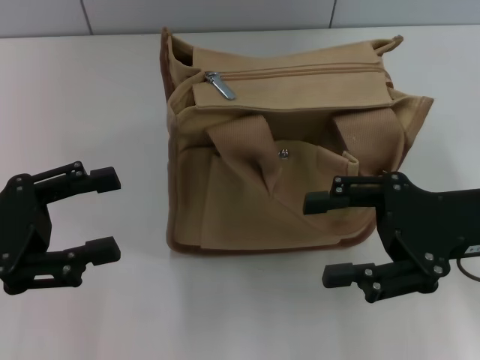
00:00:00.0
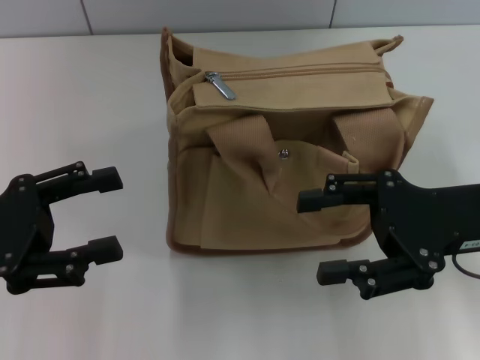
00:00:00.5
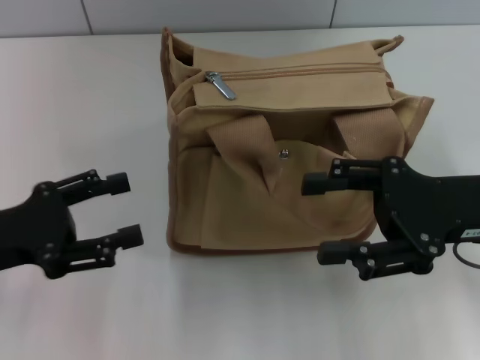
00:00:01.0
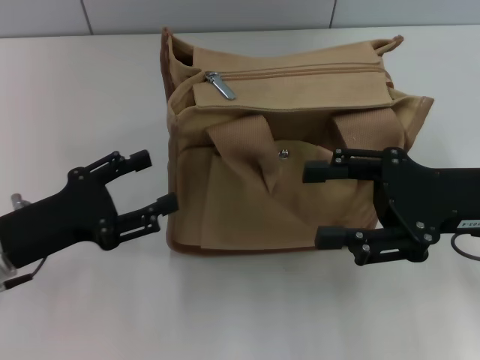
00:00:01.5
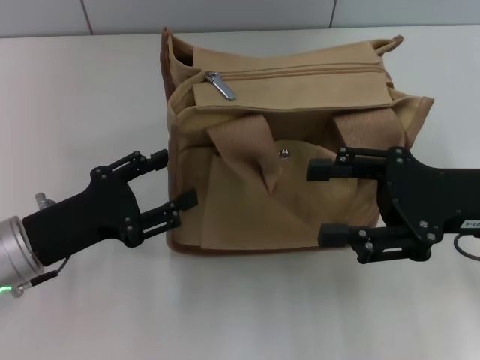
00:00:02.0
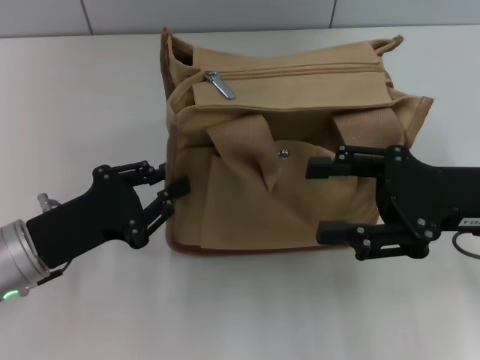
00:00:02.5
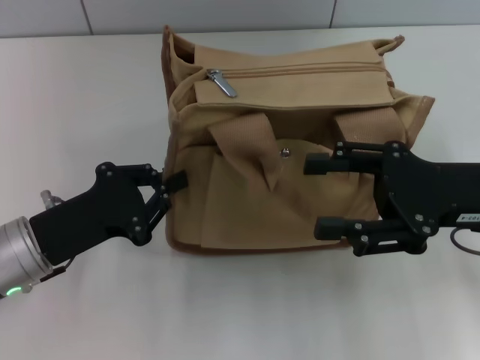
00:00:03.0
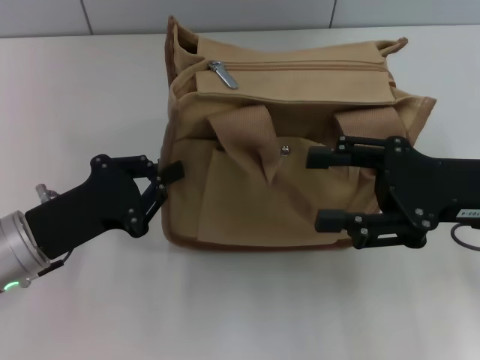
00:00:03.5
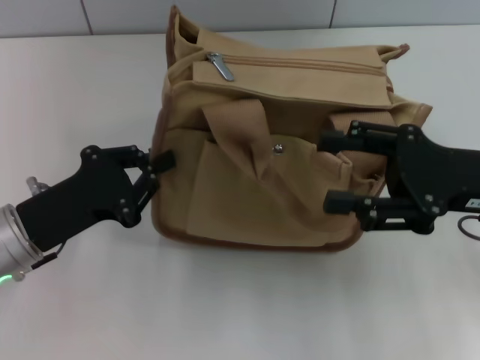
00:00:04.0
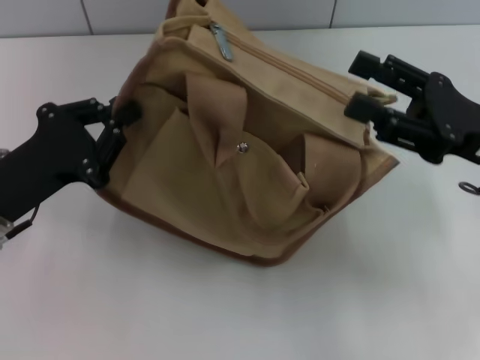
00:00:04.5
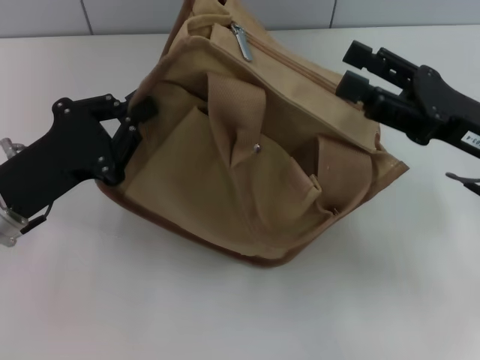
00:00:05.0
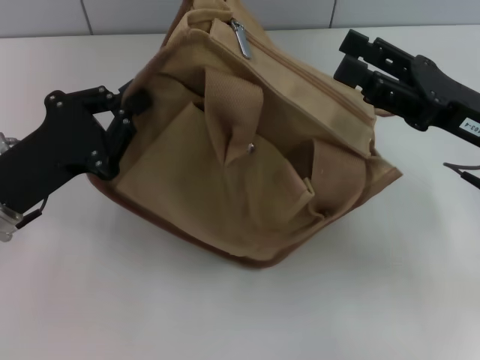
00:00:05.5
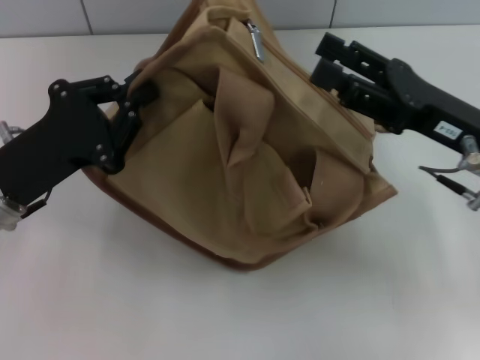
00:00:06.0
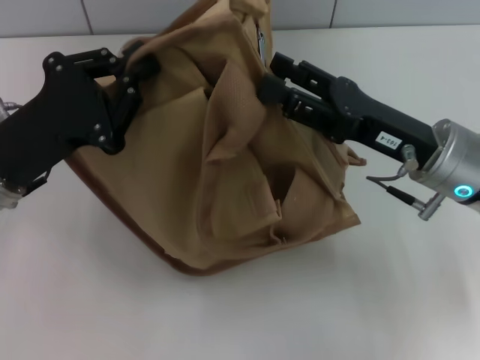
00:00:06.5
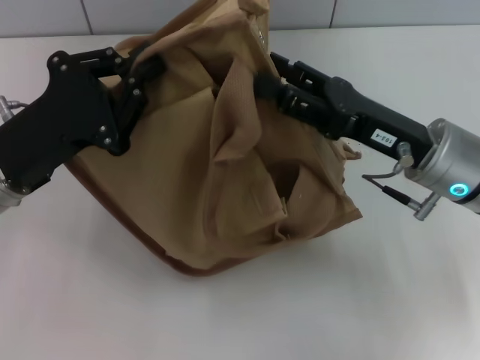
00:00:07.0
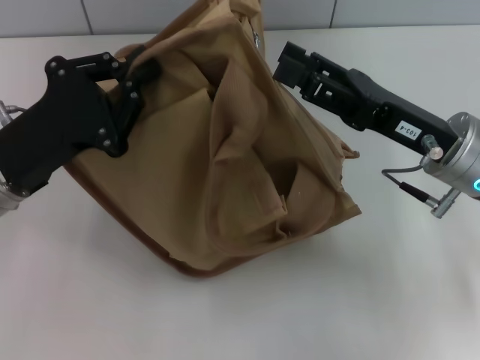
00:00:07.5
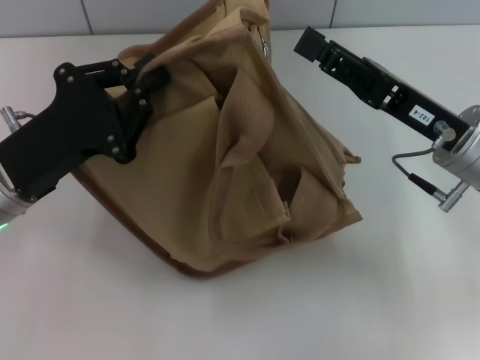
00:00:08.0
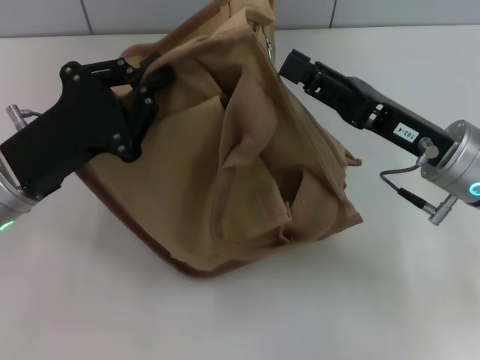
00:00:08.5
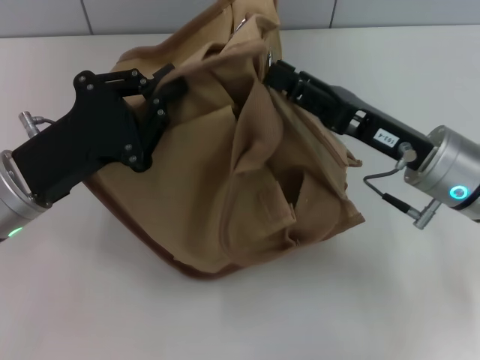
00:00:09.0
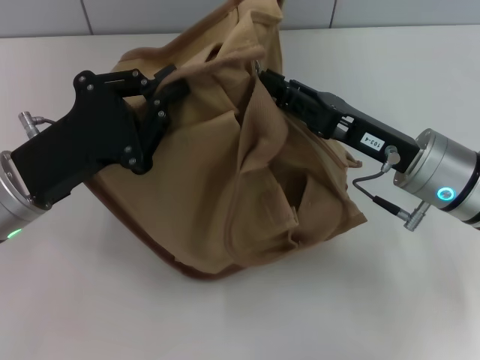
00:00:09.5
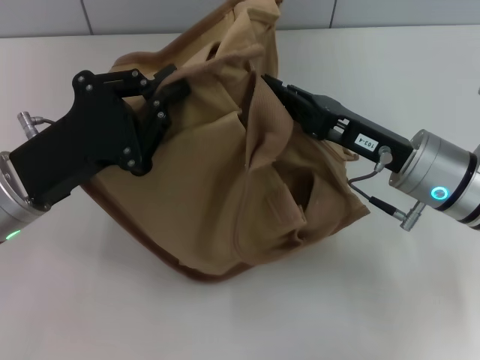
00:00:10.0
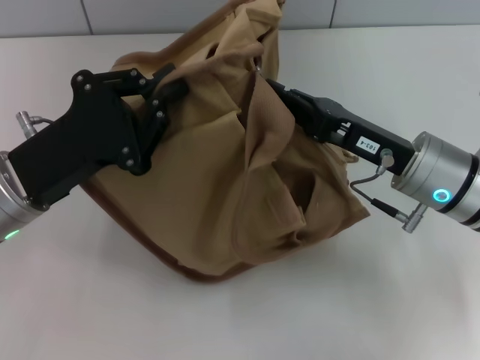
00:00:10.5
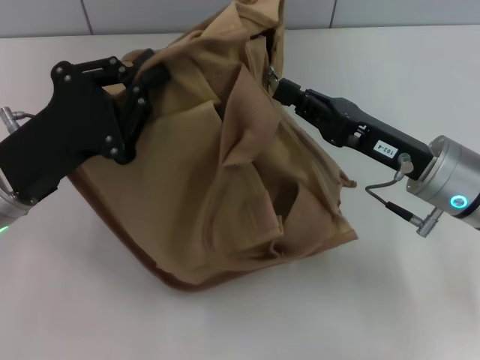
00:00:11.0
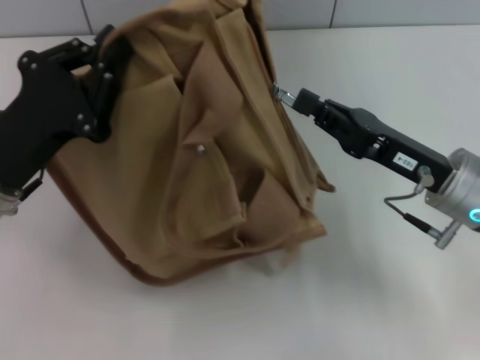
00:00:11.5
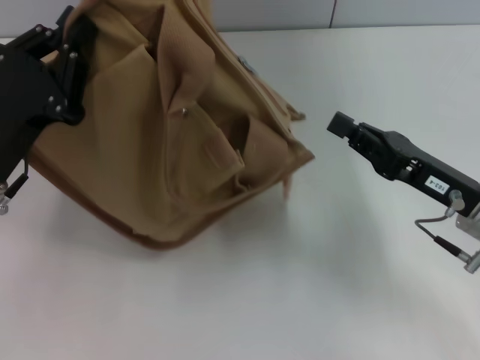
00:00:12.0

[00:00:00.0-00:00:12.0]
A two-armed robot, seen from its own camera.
00:00:00.0 to 00:00:02.0: The left gripper travels downward and to the right by approximately 10 cm.
00:00:02.0 to 00:00:04.0: The left gripper closes up.
00:00:08.0 to 00:00:10.0: The right gripper closes its fingers.
00:00:10.0 to 00:00:12.0: The right gripper heads to the right, covering approximately 5 cm.

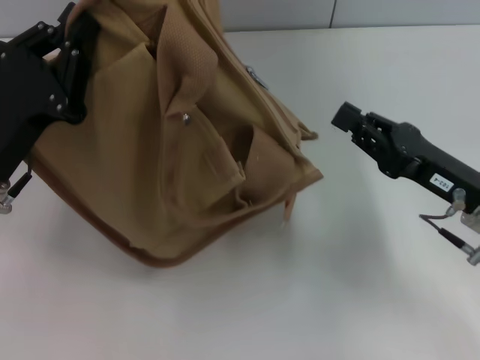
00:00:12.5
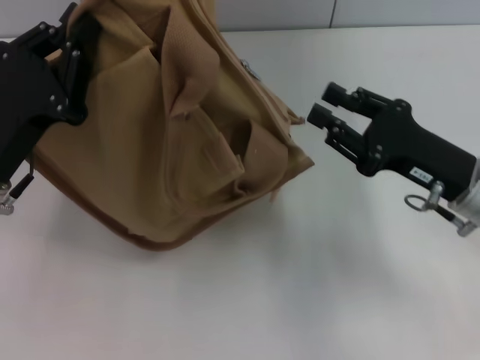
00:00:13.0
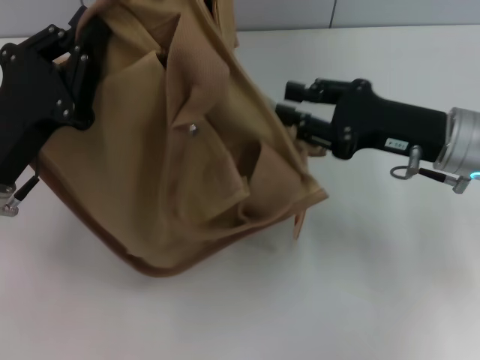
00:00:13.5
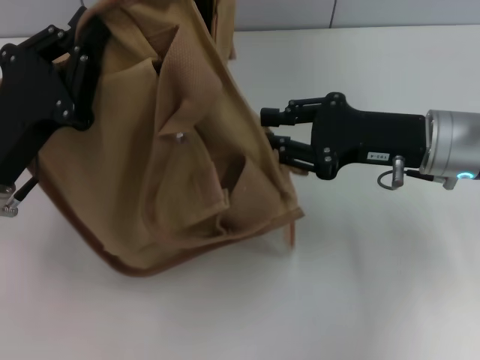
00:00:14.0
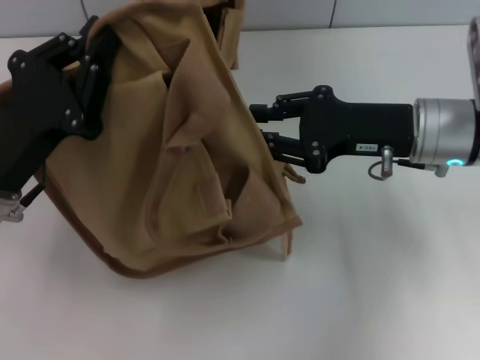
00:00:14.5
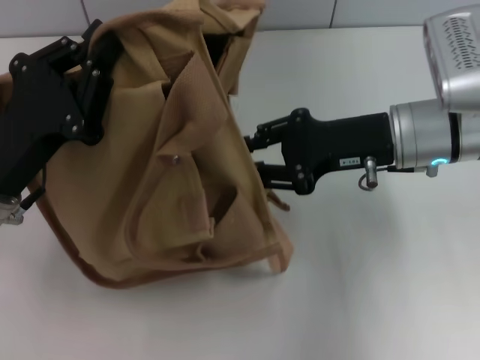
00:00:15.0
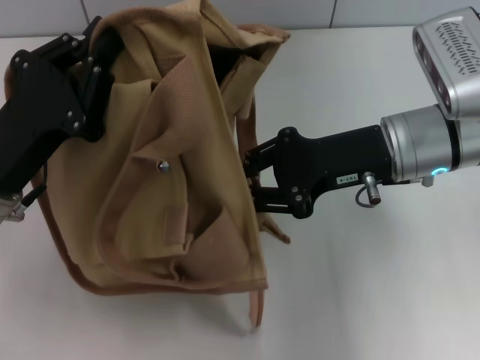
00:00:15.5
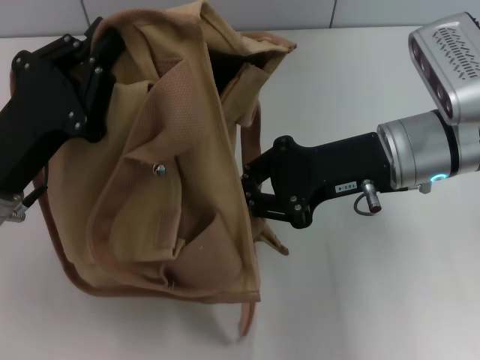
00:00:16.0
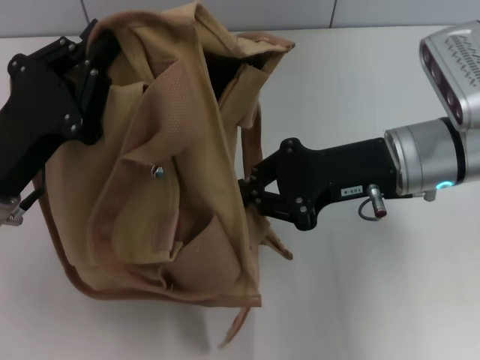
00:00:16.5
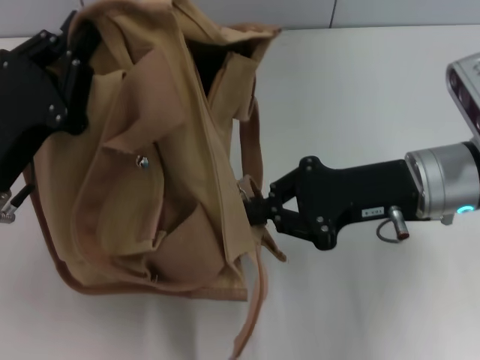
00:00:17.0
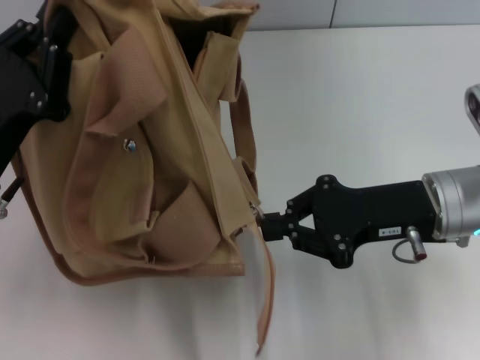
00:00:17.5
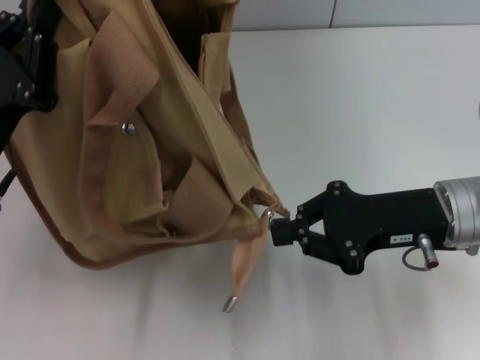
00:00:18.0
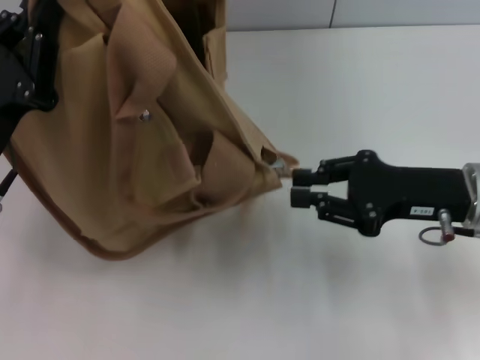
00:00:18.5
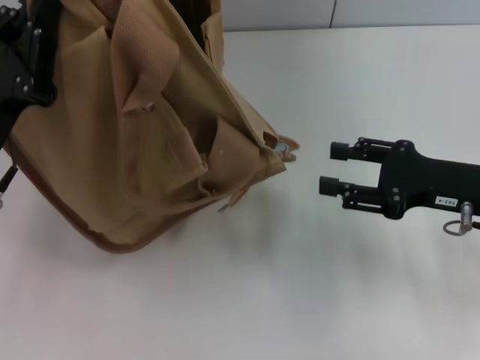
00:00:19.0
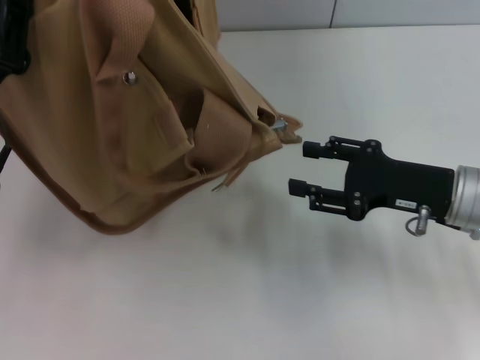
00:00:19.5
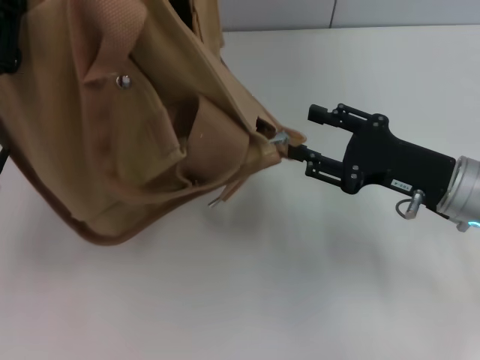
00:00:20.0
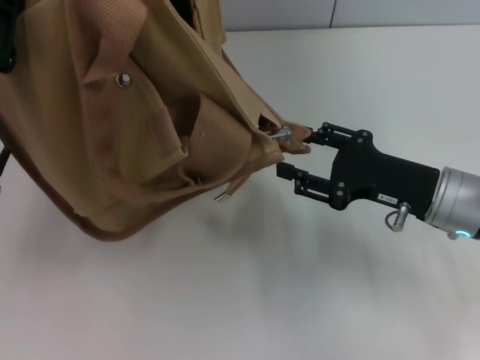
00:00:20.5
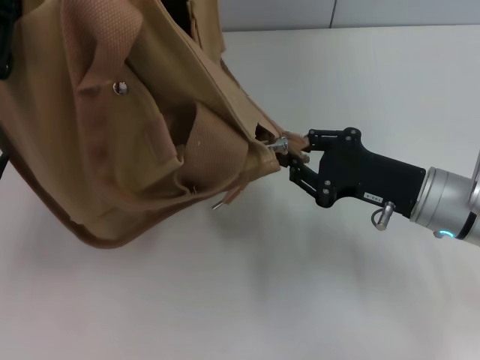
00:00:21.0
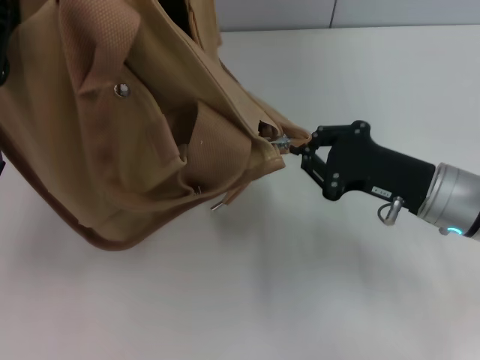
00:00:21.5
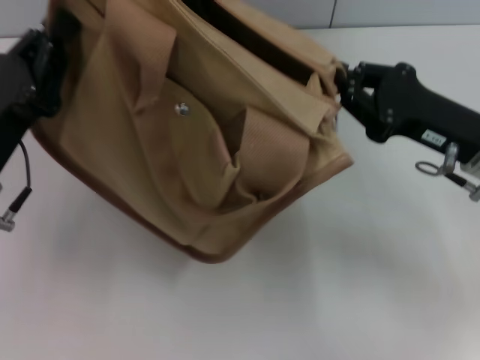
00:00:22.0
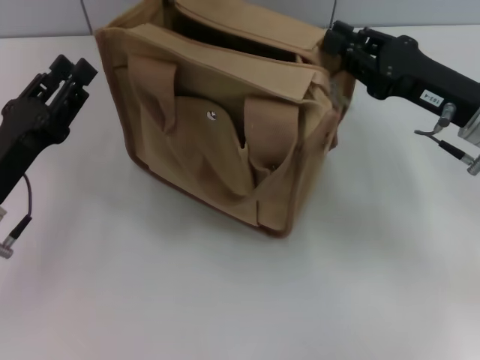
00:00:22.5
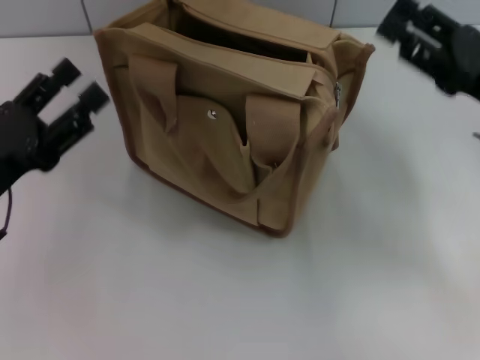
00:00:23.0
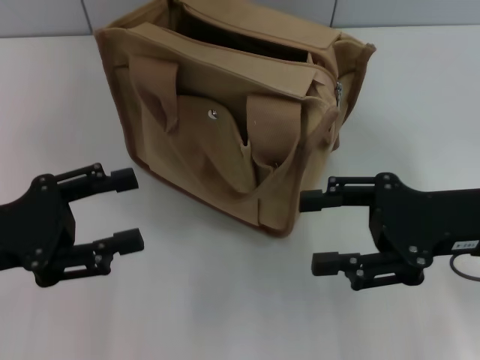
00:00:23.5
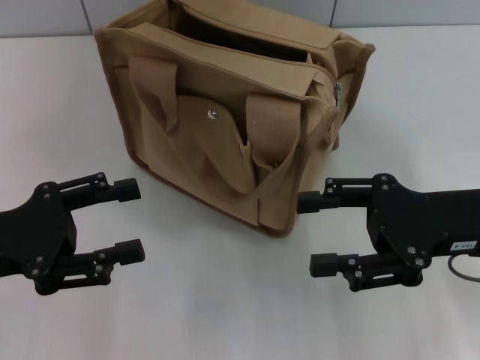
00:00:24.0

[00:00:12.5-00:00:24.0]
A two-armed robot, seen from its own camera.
Step, 00:00:12.5 to 00:00:18.0: Pull open the zipper with your right hand.
Step, 00:00:19.0 to 00:00:22.0: Grab the bag with your left hand.
00:00:12.5 to 00:00:14.5: The right gripper goes about 10 cm forward, upward and to the left.
00:00:14.5 to 00:00:16.5: The right gripper closes its fingers.
00:00:16.5 to 00:00:18.5: The right gripper heads to the right, covering roughly 5 cm.
00:00:18.5 to 00:00:20.0: The right gripper opens.
00:00:20.0 to 00:00:22.0: The right gripper closes.
00:00:22.0 to 00:00:24.0: The right gripper opens; the left gripper shifts by about 5 cm, and opens.

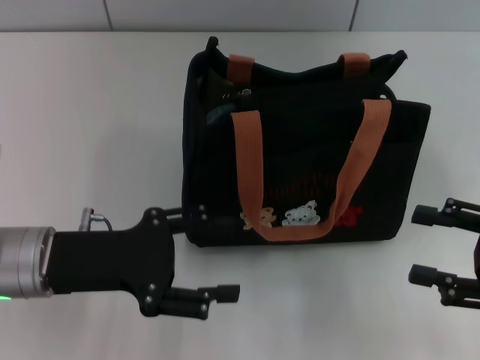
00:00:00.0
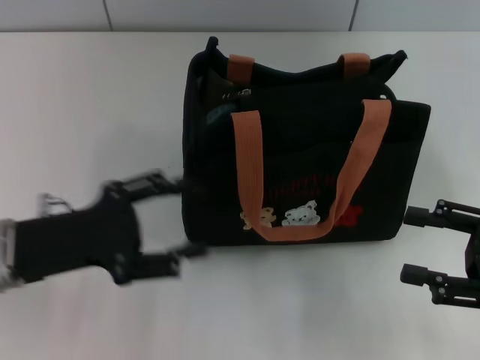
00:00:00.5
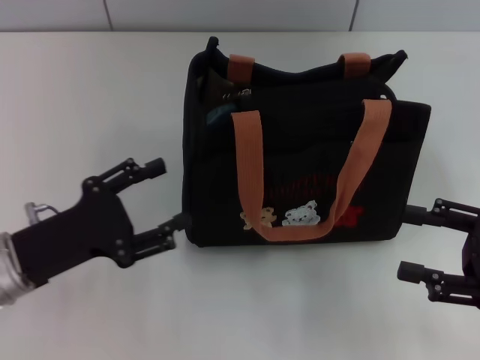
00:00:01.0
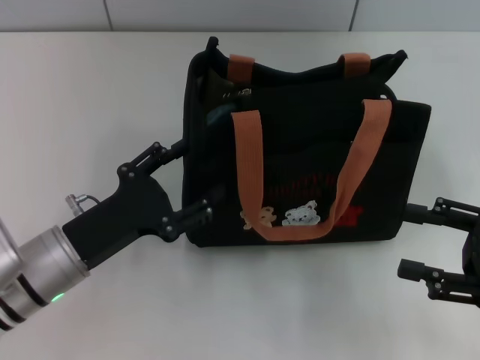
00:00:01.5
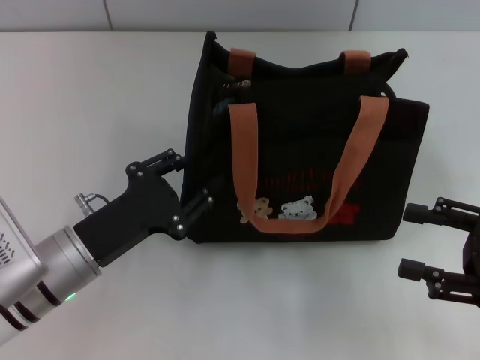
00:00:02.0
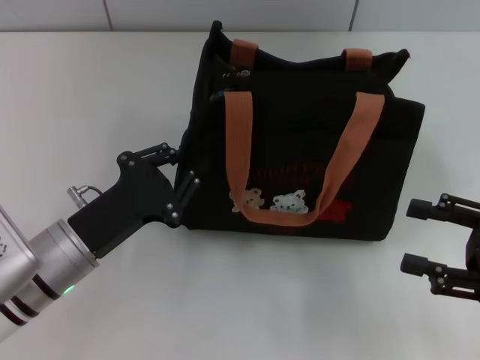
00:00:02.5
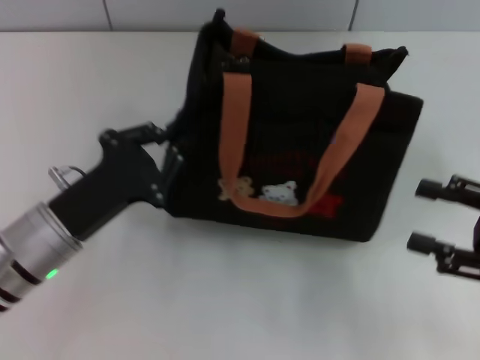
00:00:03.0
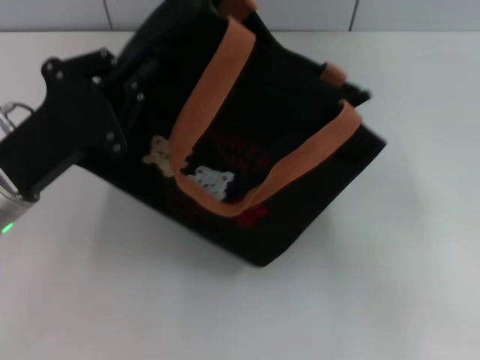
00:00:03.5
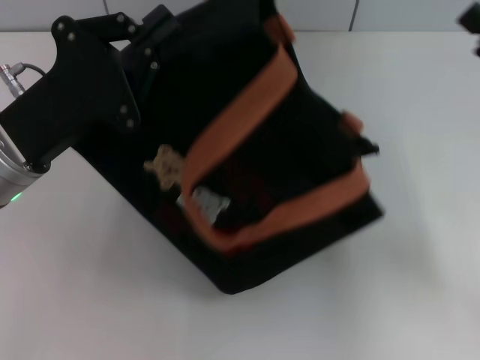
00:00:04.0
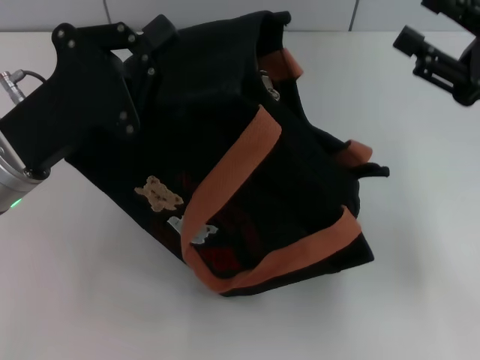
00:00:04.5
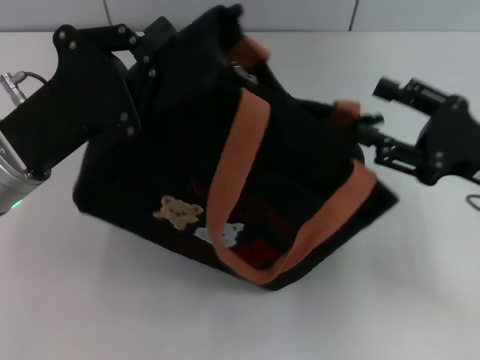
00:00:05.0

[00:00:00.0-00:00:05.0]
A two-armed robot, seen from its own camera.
00:00:00.0 to 00:00:02.5: The left gripper goes some 5 cm downward, and closes its fingers.
00:00:02.5 to 00:00:05.0: The right gripper goes some 5 cm forward. The left gripper is displaced upward by some 10 cm.
